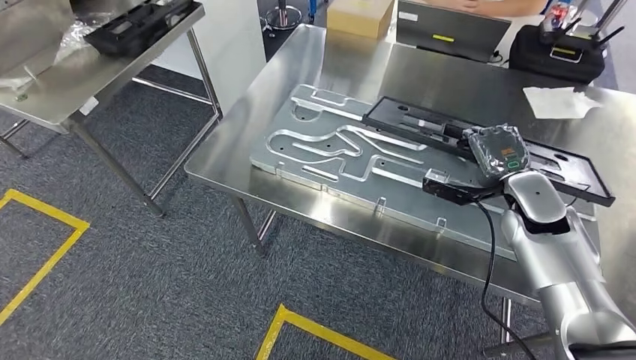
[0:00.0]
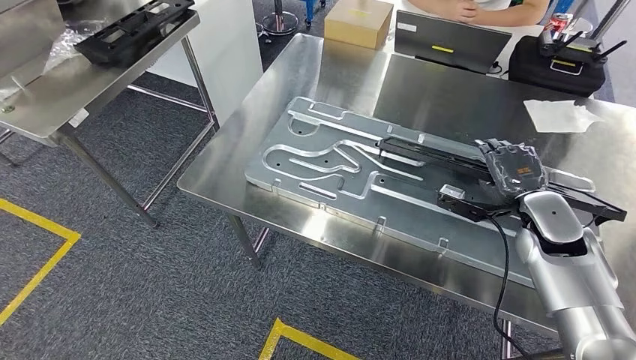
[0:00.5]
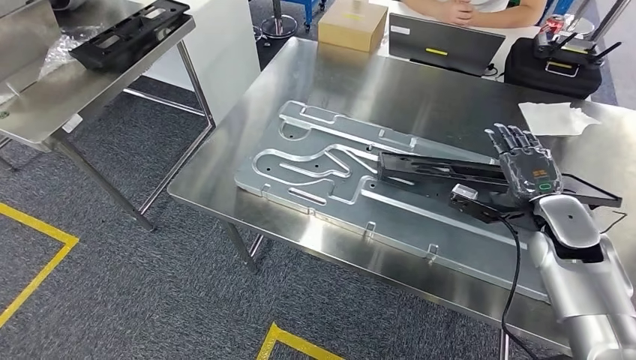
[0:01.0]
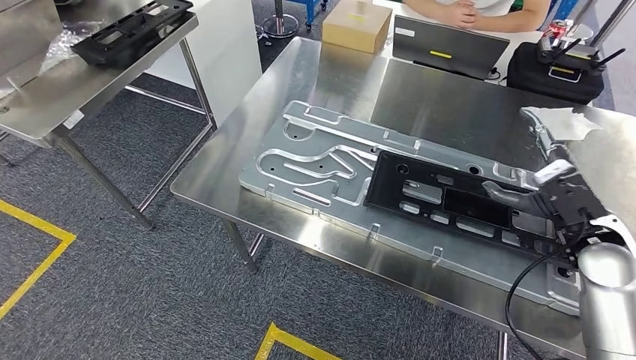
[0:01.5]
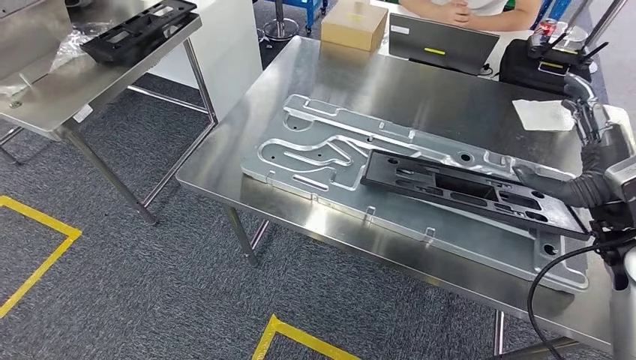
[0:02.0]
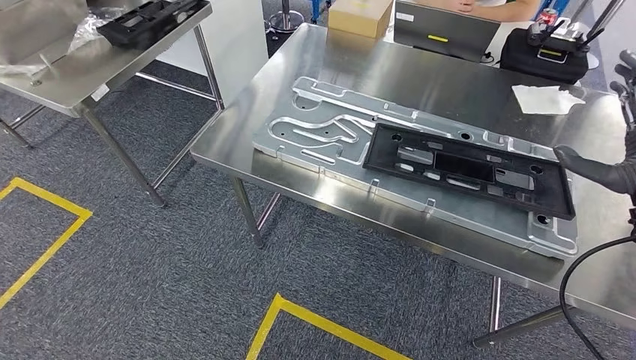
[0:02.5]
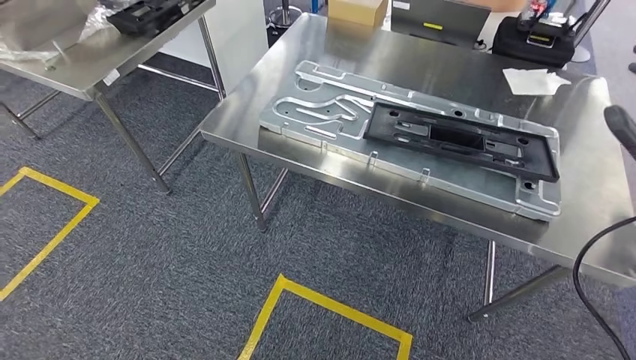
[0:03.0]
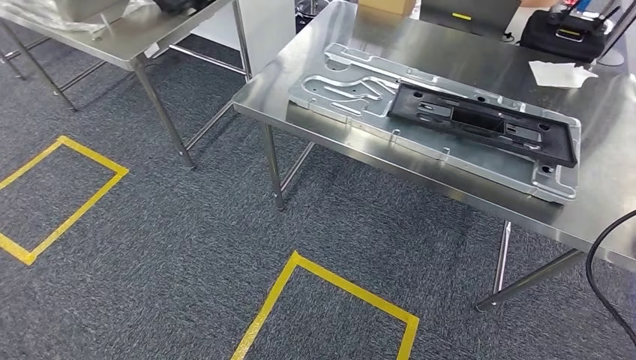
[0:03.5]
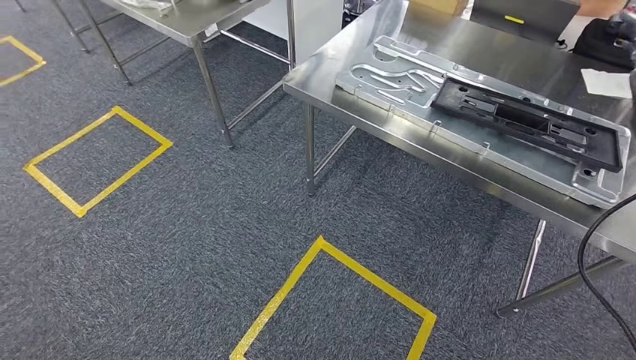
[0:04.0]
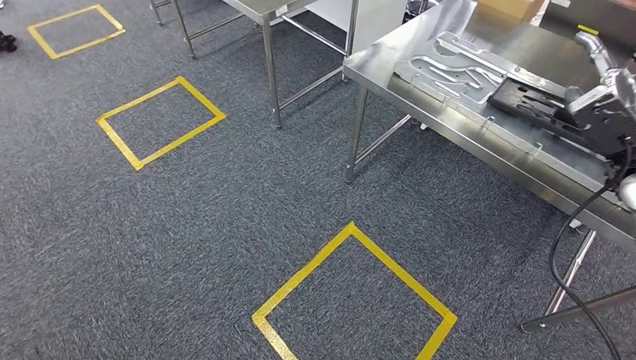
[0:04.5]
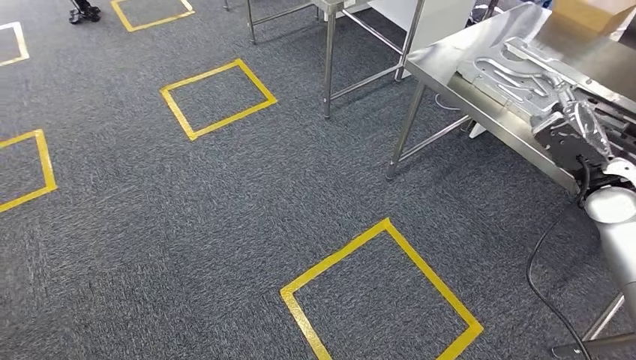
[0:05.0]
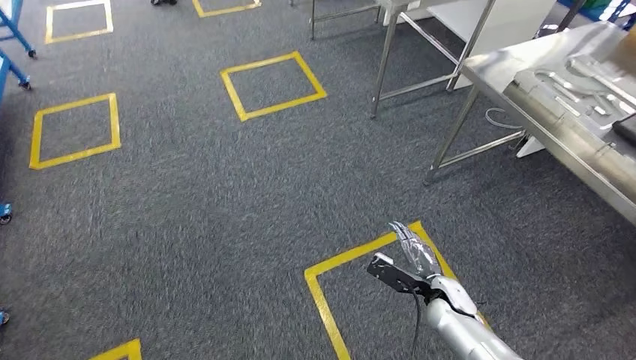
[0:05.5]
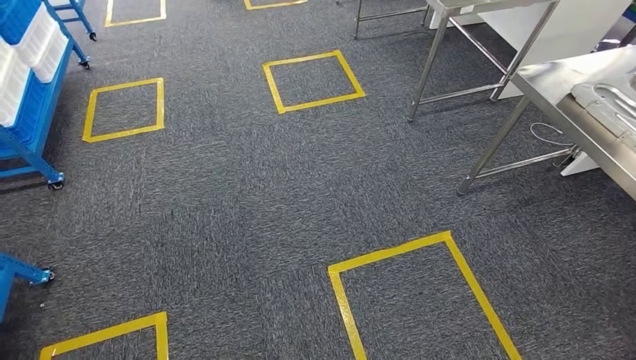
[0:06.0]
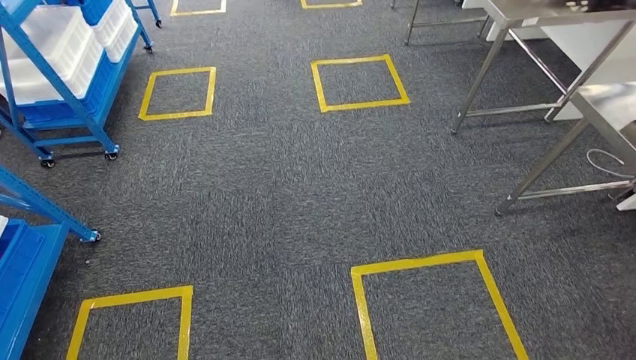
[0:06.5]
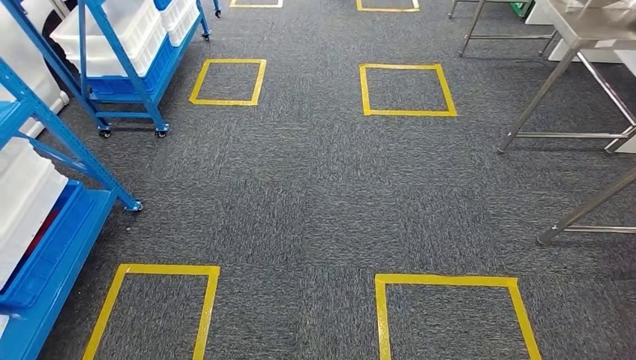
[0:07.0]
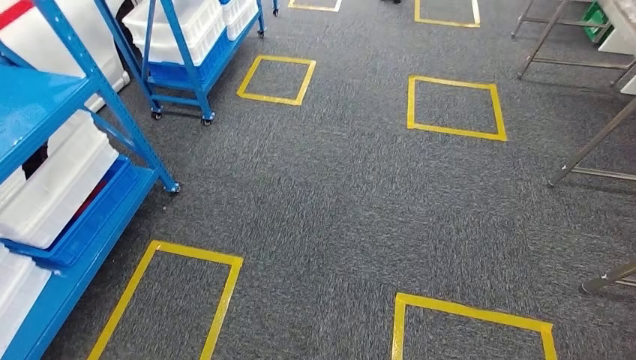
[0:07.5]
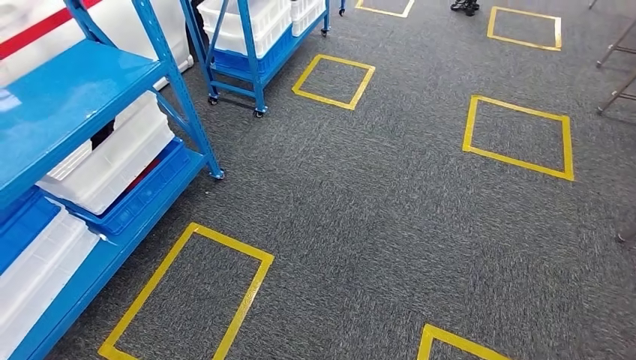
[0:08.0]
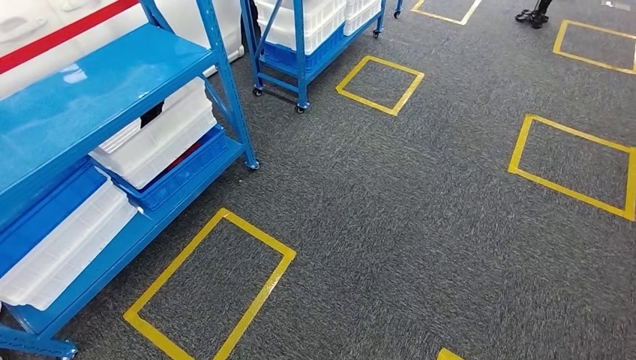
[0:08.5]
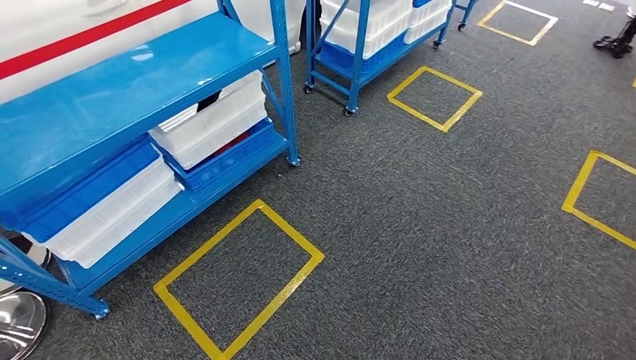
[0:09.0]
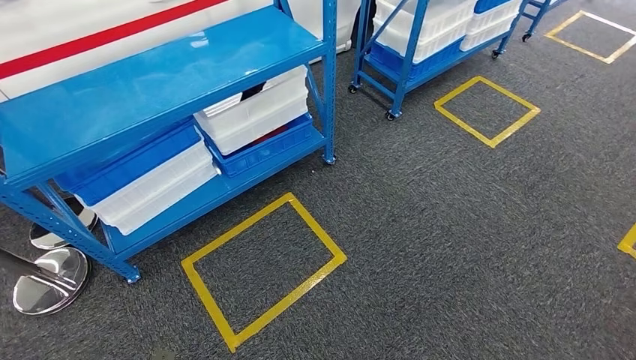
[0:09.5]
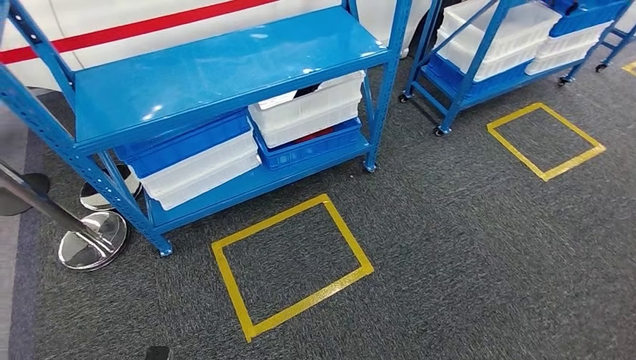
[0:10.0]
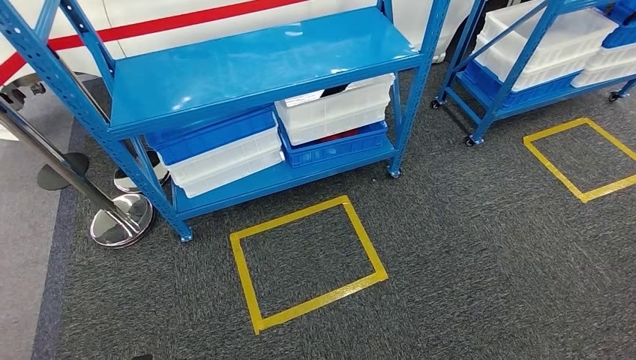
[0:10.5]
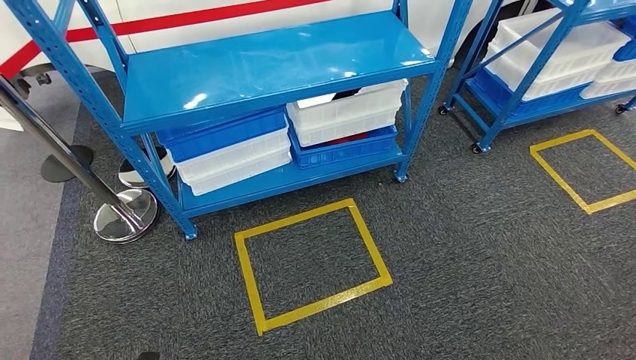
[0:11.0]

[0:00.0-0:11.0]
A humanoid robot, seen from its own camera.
Step, 0:00.0 to 0:04.0: Insert the large material into the corresponding slot on the workbench.

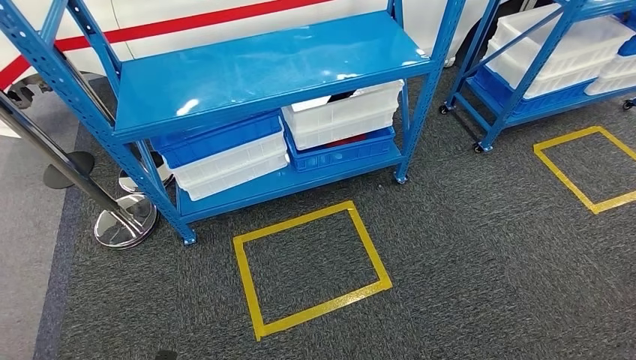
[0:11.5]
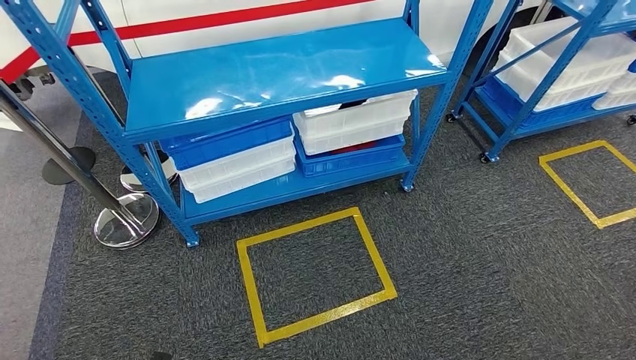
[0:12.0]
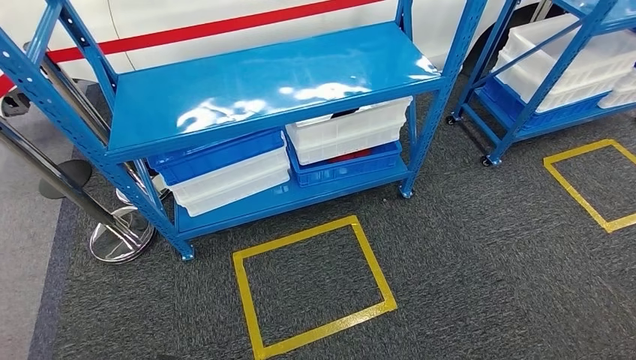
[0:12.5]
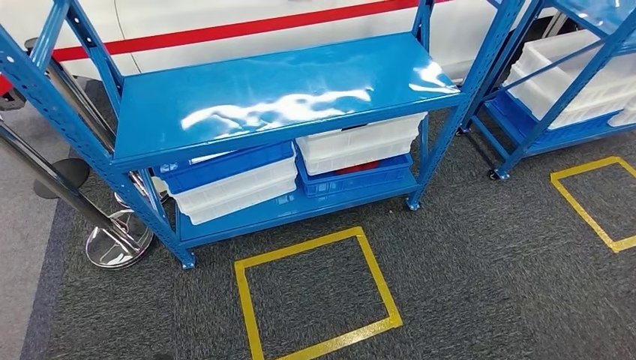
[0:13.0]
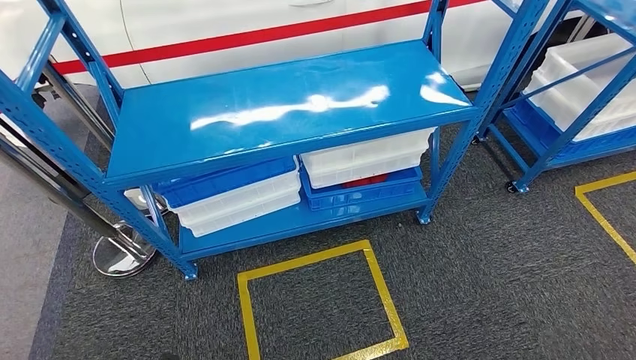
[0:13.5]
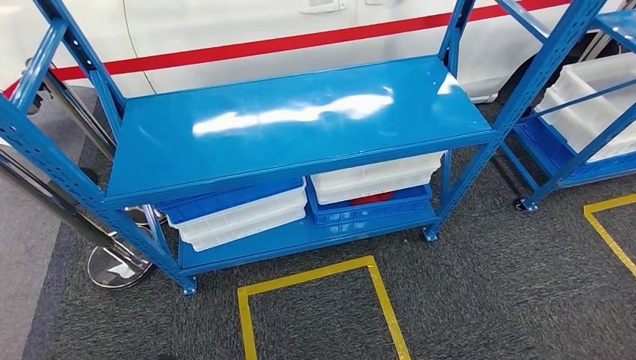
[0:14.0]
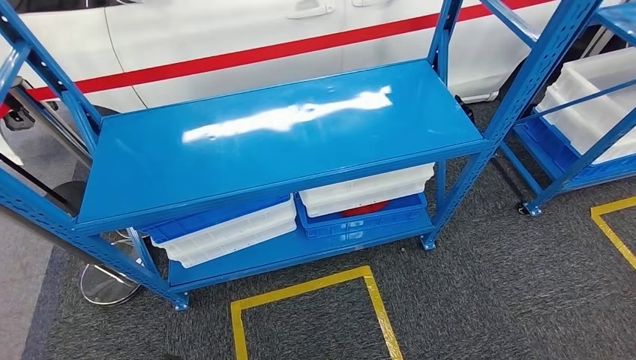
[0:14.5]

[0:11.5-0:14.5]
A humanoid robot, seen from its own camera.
Step, 0:11.5 to 0:14.5: Return to the initial position at the shelf.

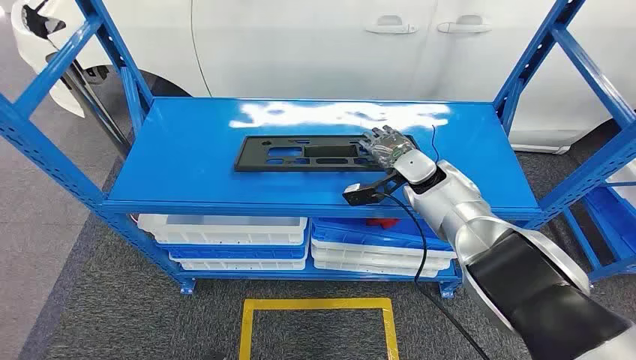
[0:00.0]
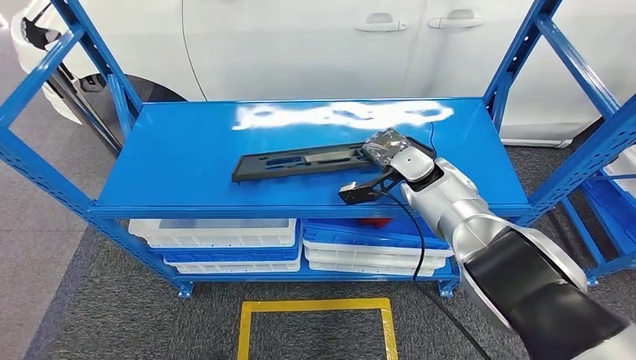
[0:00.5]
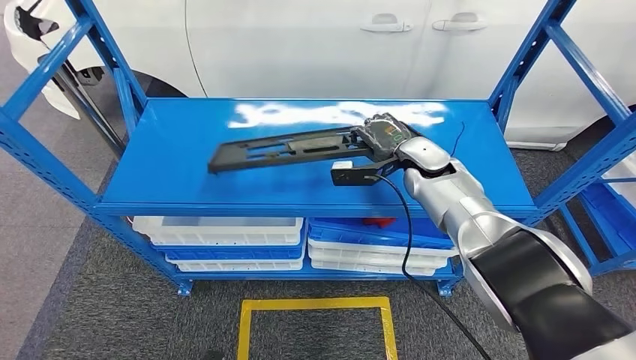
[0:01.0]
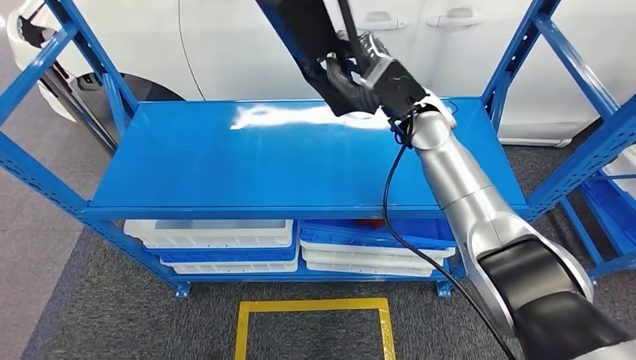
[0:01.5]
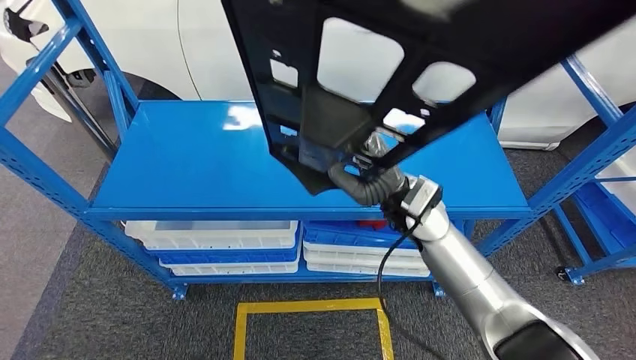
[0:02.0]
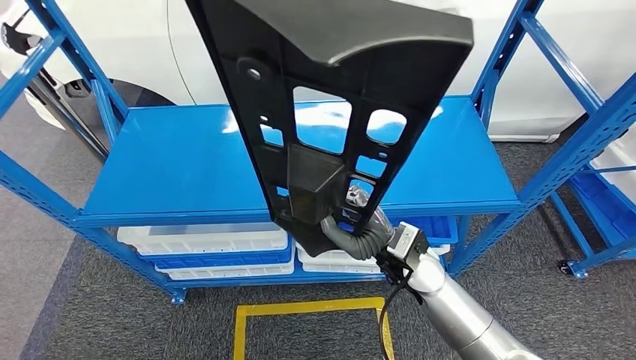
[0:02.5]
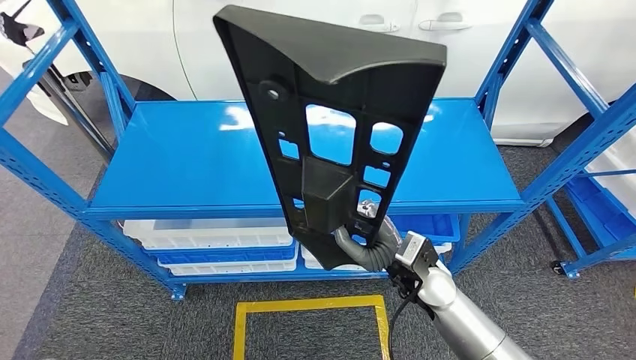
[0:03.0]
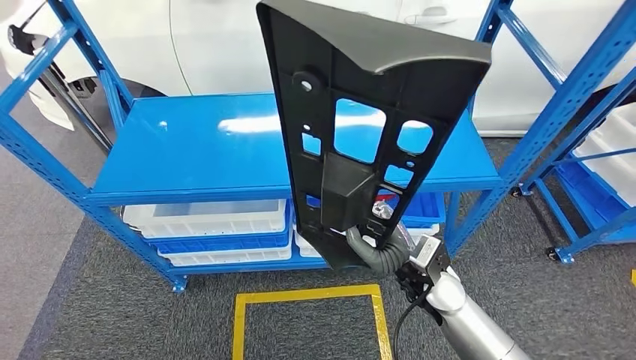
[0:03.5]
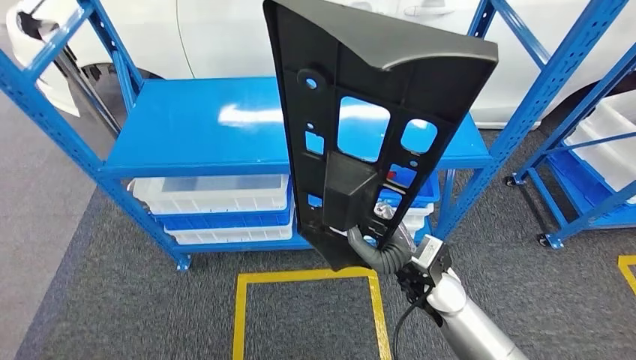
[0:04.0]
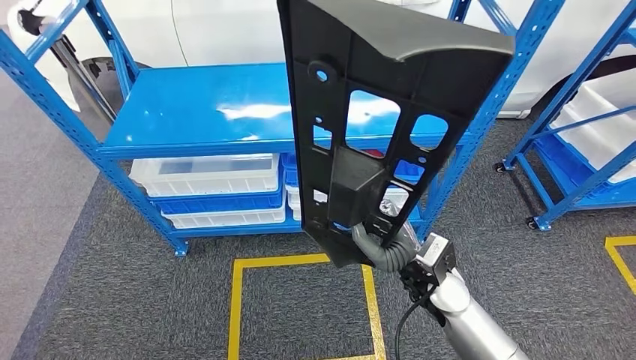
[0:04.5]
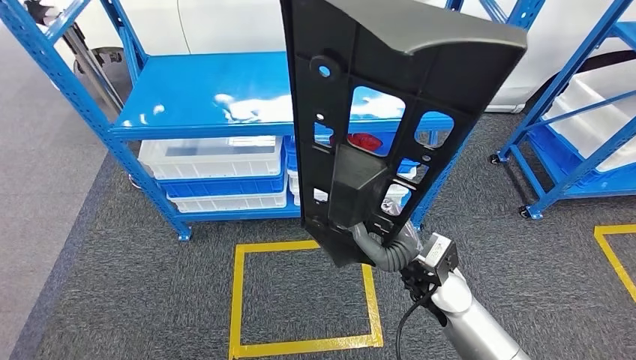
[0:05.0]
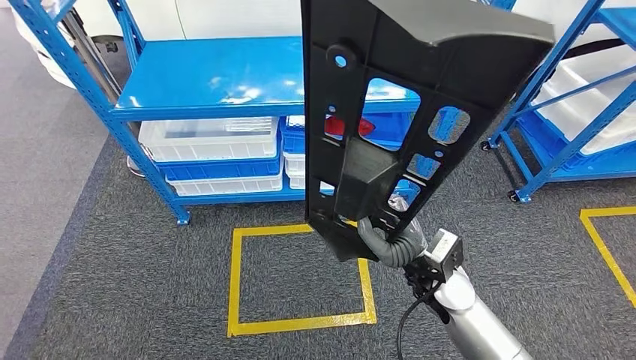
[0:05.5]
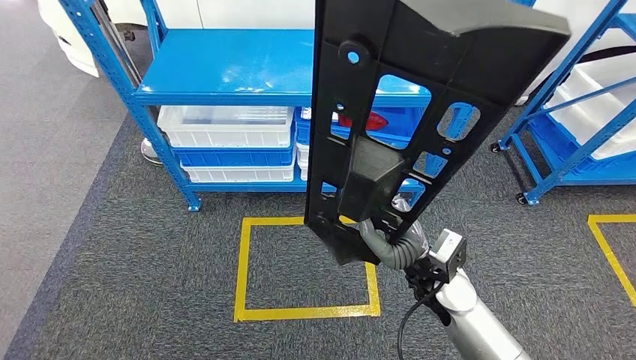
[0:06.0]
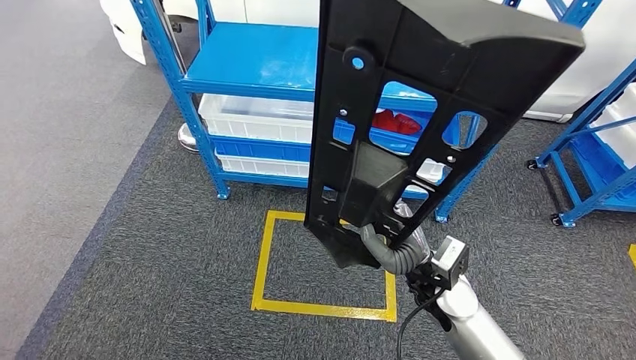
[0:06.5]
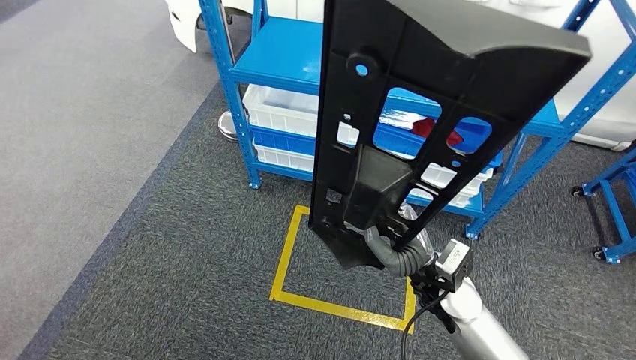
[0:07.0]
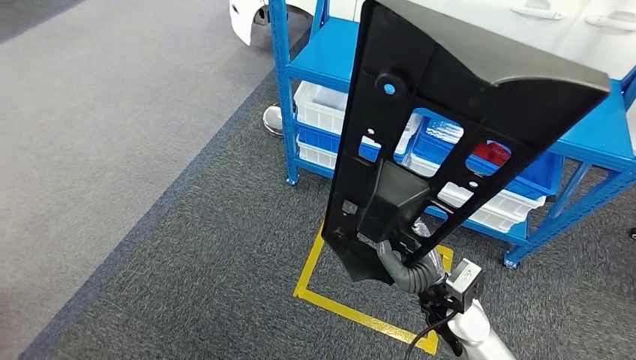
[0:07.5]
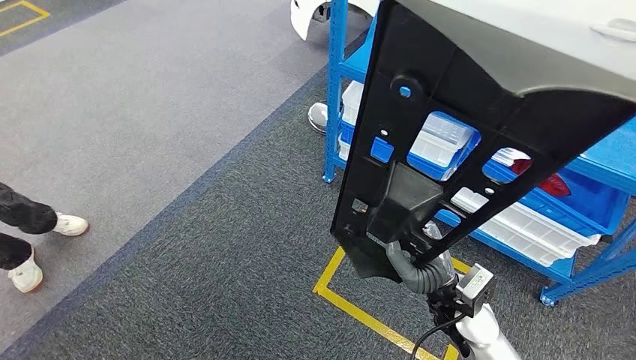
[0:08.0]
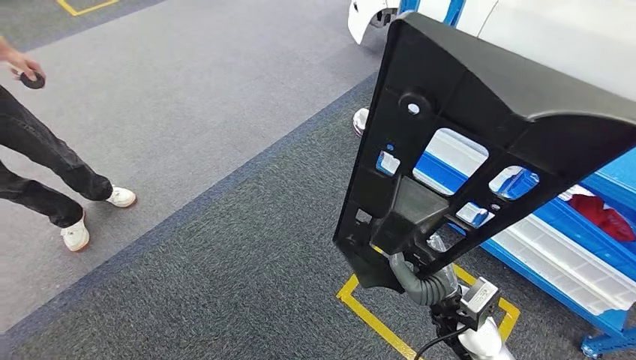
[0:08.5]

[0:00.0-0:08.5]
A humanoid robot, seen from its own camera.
Step, 0:00.0 to 0:04.0: Pick up the large material from the shelf.
